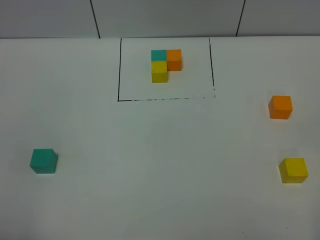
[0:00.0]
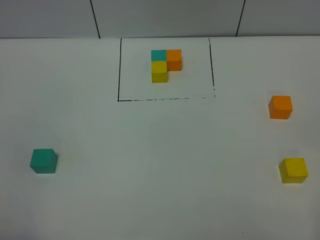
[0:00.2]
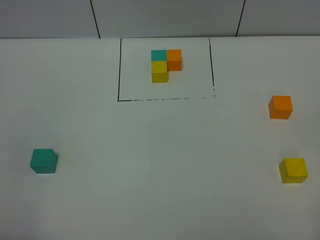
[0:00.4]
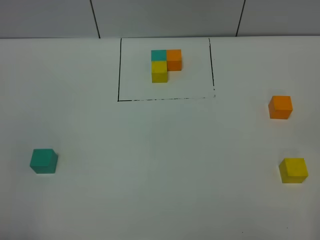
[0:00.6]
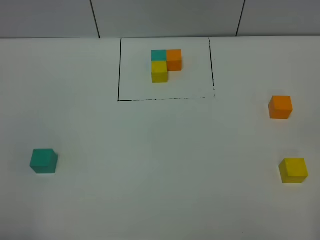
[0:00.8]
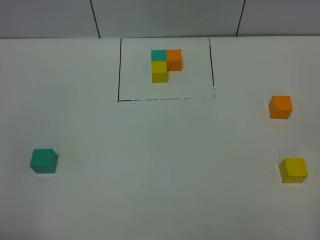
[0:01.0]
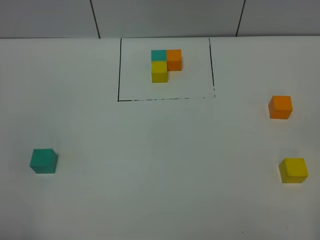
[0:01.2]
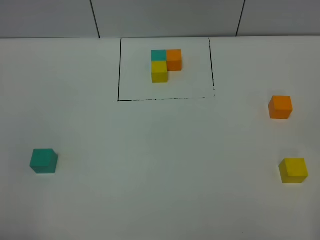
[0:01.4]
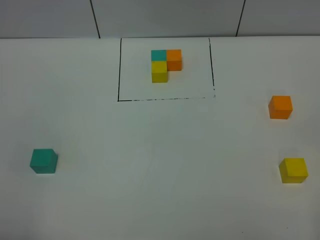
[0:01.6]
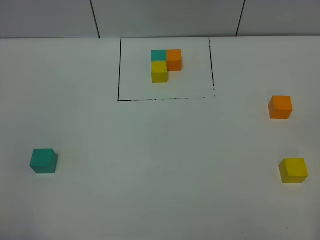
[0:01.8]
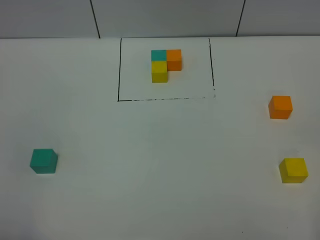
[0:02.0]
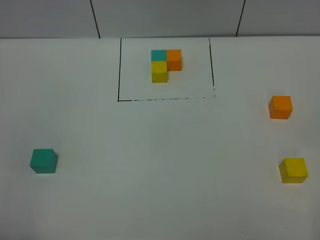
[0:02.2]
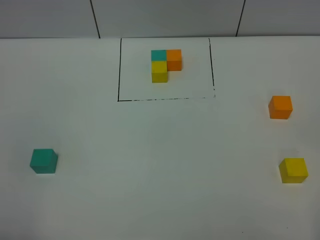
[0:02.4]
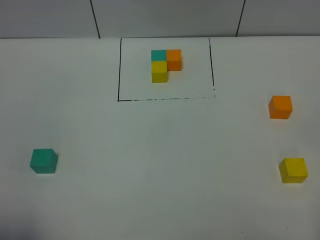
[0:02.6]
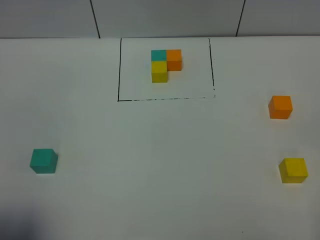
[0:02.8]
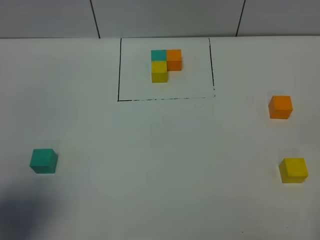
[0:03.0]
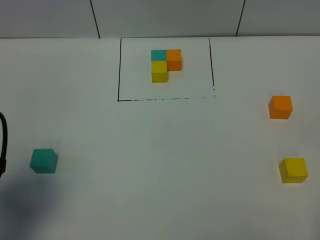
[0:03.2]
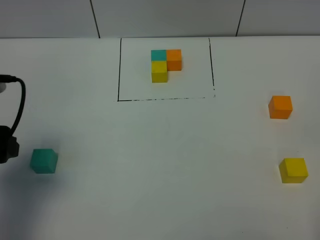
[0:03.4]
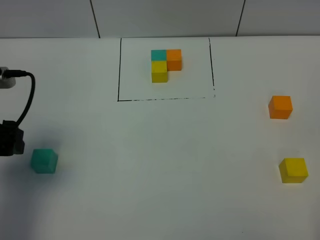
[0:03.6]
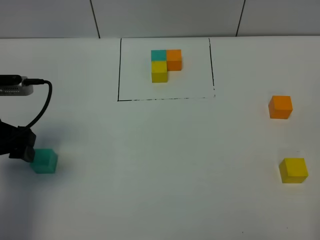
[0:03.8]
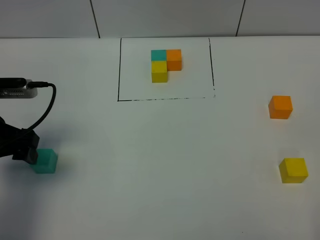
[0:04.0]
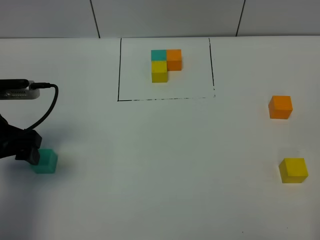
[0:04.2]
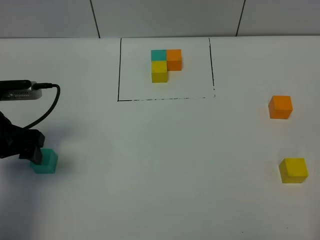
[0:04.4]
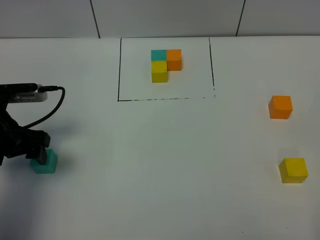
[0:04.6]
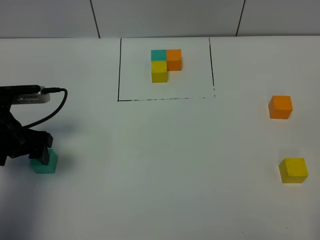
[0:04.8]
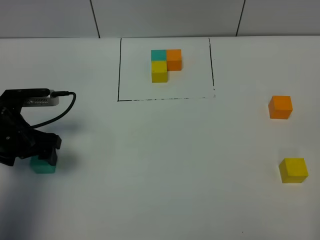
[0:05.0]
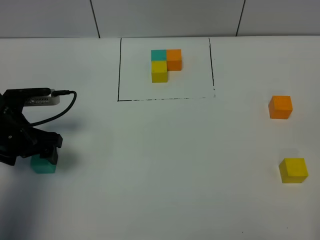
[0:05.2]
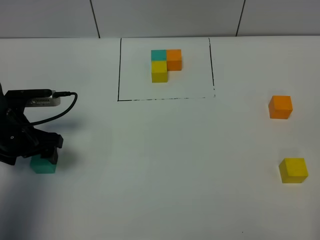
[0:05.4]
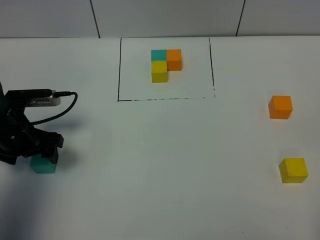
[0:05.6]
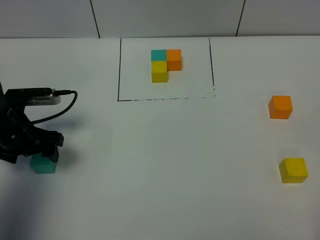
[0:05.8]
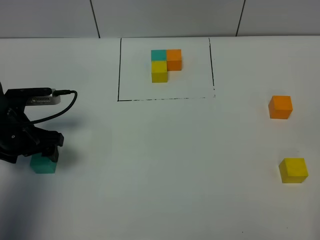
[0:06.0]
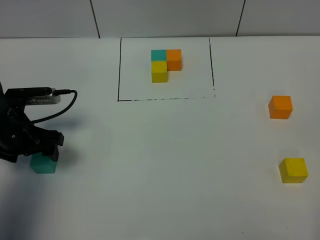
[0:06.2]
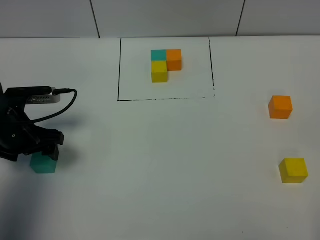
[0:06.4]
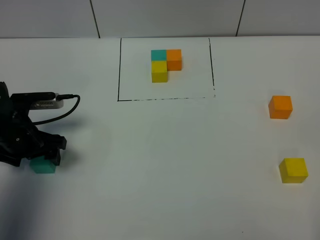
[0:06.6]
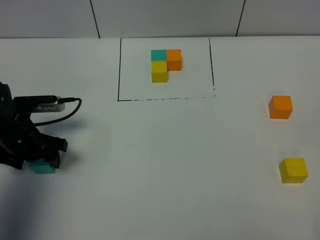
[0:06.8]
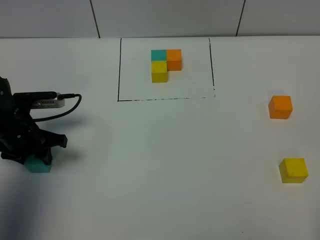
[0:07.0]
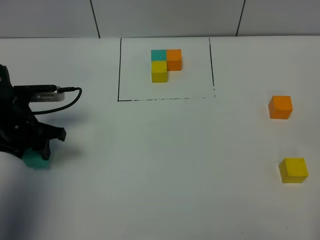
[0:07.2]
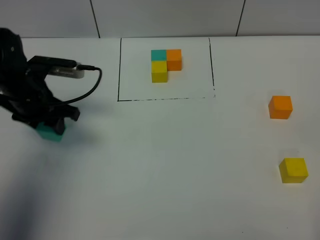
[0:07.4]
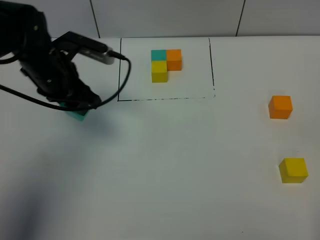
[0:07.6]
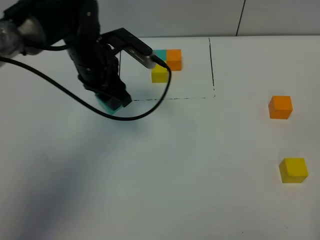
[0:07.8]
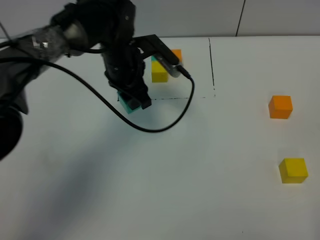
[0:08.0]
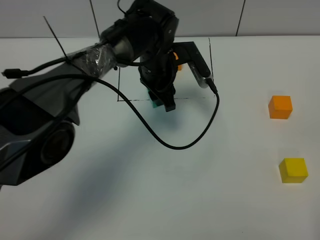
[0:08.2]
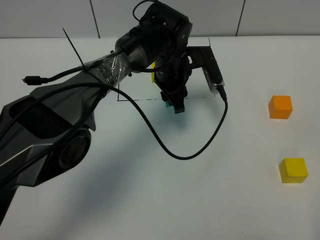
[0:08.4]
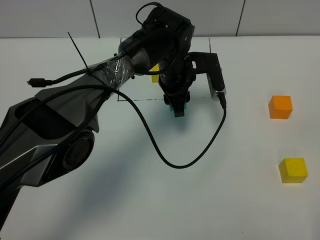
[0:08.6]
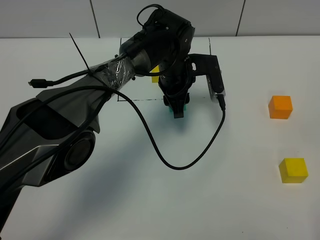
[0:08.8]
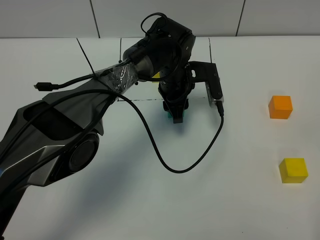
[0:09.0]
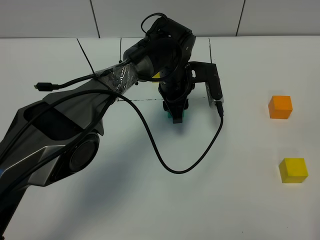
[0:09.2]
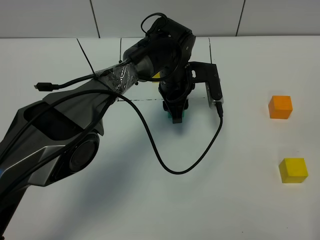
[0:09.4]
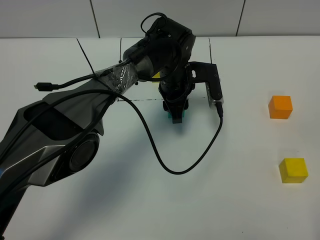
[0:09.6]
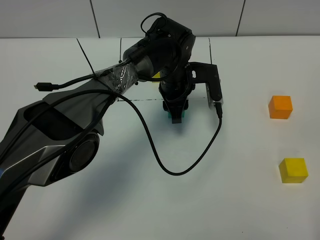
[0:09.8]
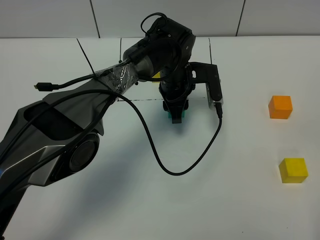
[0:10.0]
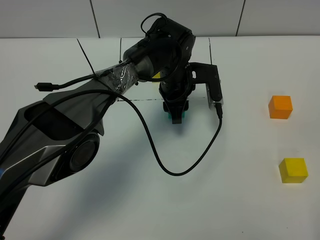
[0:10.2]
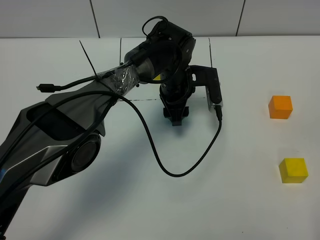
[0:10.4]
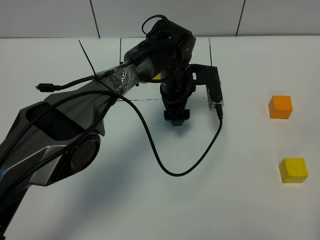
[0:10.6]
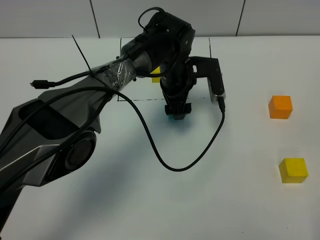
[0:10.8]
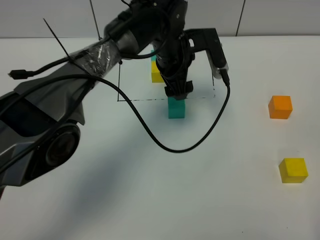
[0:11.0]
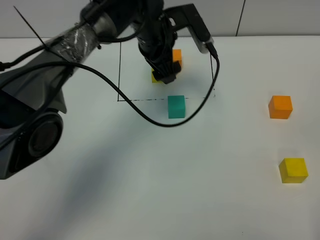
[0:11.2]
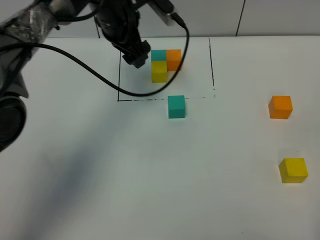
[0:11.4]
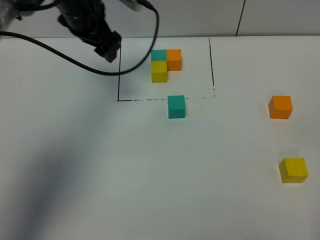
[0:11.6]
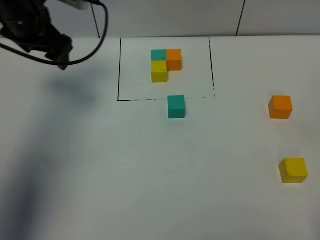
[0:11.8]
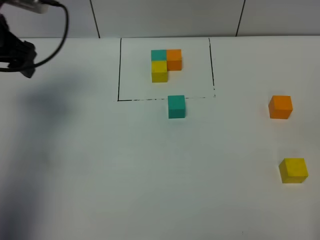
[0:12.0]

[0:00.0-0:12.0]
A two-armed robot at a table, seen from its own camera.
Task of the whole recording: According to the building block template in front, assemble the scattered blocks together.
Step, 0:00.0 to 0:10.0: Put the blue build block in the center of the table.
0:00.0 to 0:01.6: The two grippers keep their place.
0:01.6 to 0:03.0: The left gripper moves forward, roughly 10 cm.
0:03.0 to 0:04.4: The left gripper moves forward and downward, roughly 15 cm.
0:04.4 to 0:06.0: The left gripper goes roughly 5 cm downward.
0:06.0 to 0:07.6: The left gripper shifts roughly 15 cm to the right, upward and forward, and closes.
0:07.6 to 0:09.0: The left gripper travels to the right and downward by roughly 25 cm.
0:09.0 to 0:10.4: The left gripper opens its fingers.
0:10.4 to 0:12.0: The left gripper is displaced to the left and upward by roughly 35 cm, and opens.

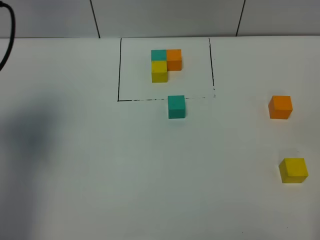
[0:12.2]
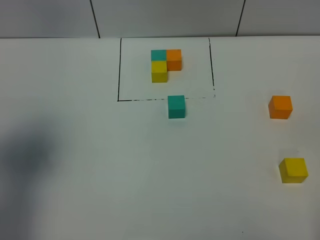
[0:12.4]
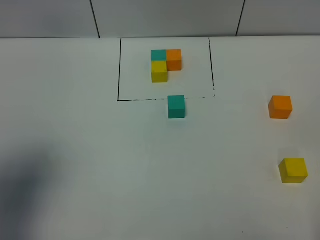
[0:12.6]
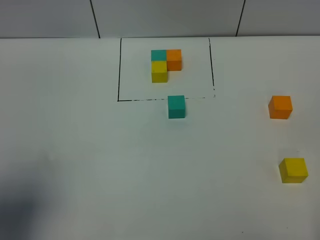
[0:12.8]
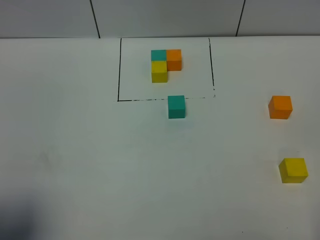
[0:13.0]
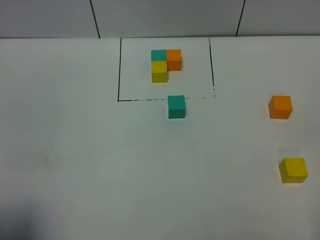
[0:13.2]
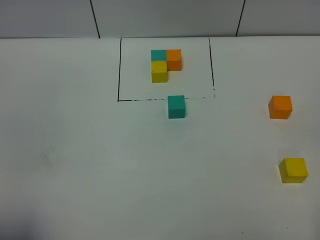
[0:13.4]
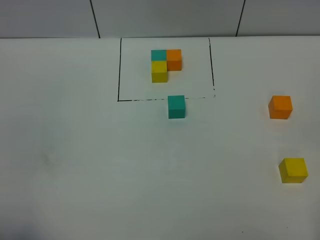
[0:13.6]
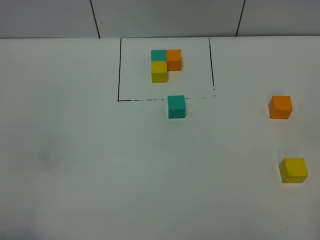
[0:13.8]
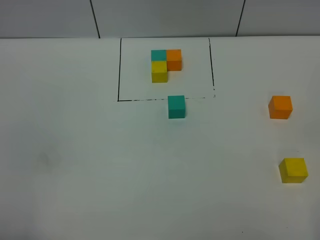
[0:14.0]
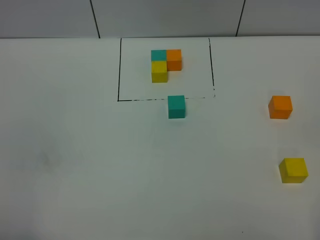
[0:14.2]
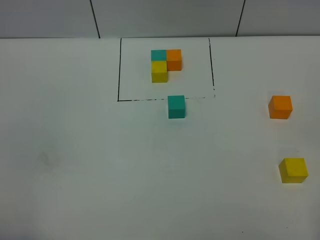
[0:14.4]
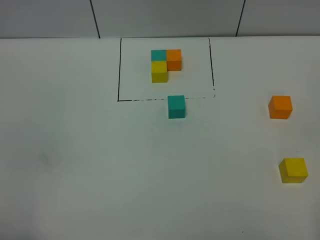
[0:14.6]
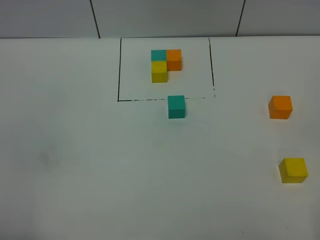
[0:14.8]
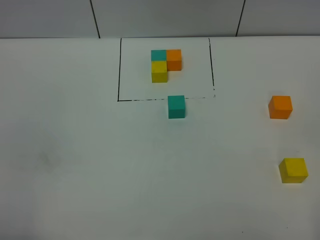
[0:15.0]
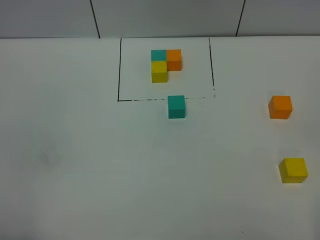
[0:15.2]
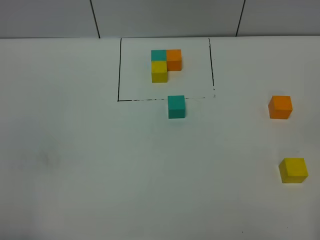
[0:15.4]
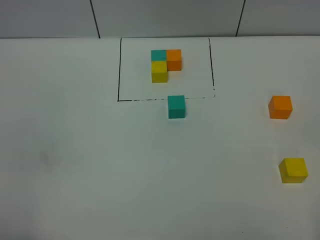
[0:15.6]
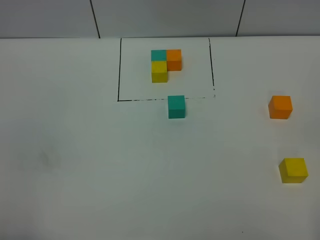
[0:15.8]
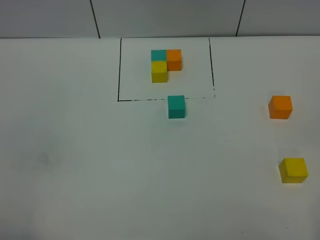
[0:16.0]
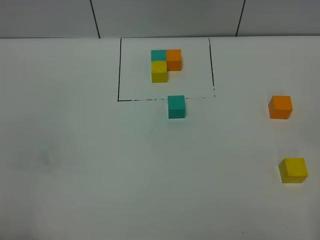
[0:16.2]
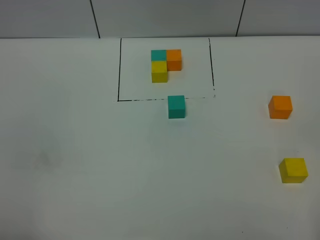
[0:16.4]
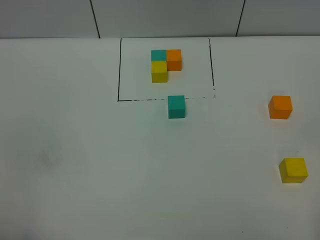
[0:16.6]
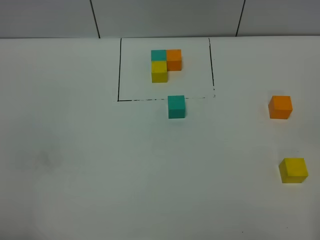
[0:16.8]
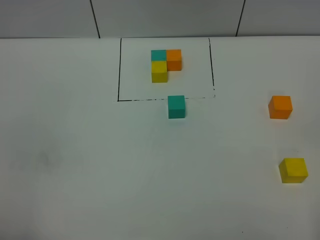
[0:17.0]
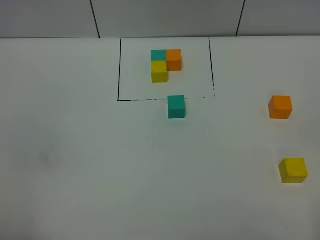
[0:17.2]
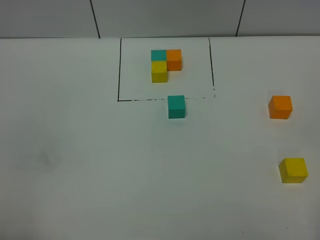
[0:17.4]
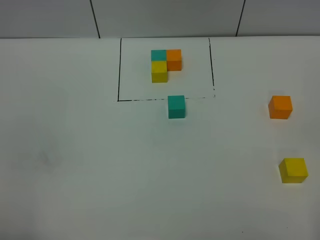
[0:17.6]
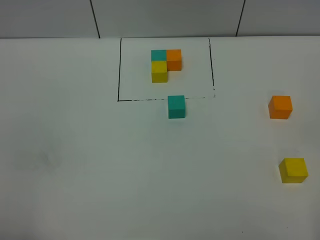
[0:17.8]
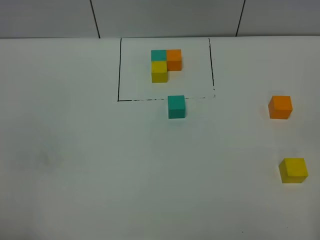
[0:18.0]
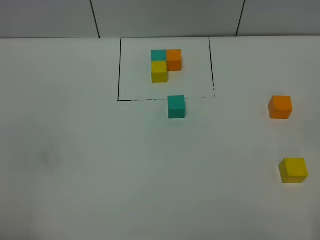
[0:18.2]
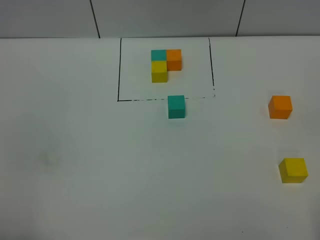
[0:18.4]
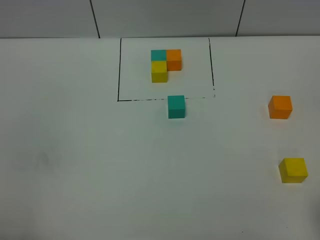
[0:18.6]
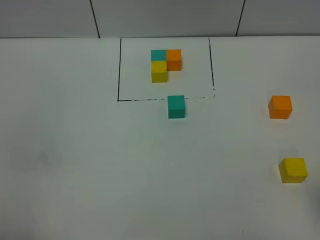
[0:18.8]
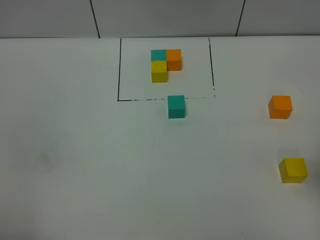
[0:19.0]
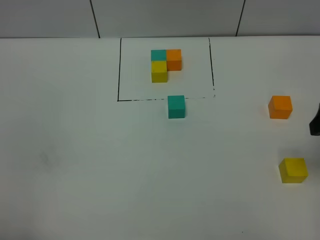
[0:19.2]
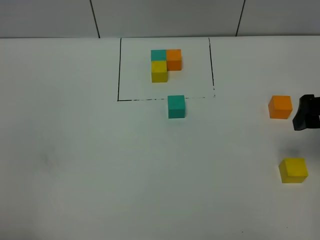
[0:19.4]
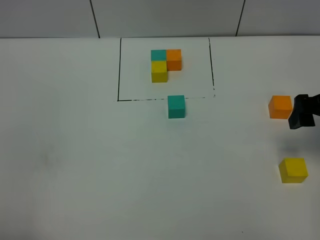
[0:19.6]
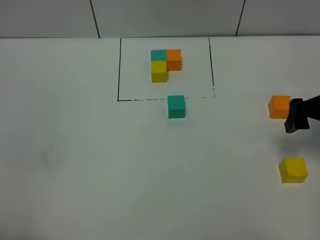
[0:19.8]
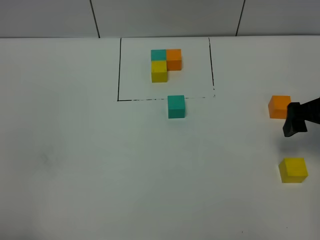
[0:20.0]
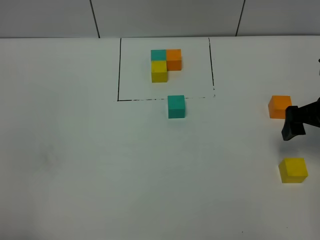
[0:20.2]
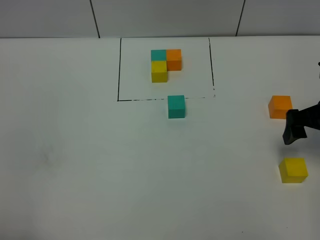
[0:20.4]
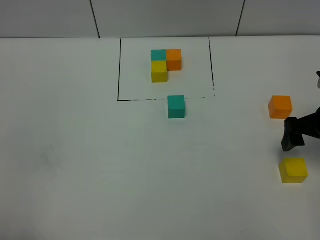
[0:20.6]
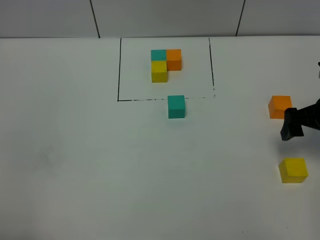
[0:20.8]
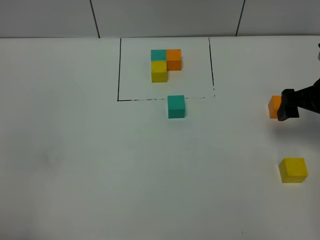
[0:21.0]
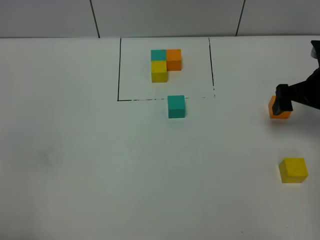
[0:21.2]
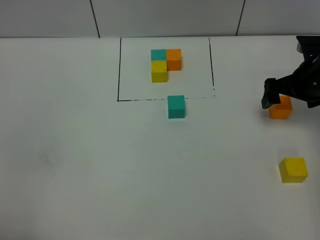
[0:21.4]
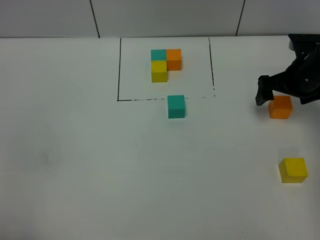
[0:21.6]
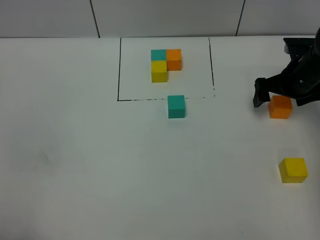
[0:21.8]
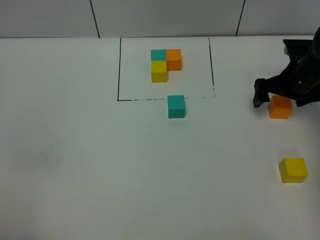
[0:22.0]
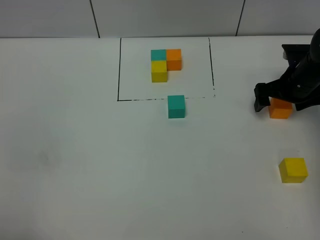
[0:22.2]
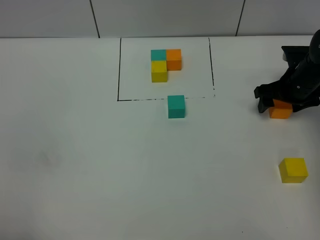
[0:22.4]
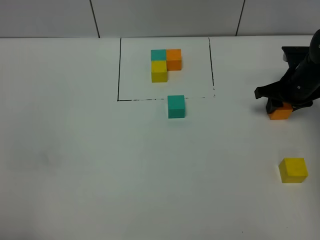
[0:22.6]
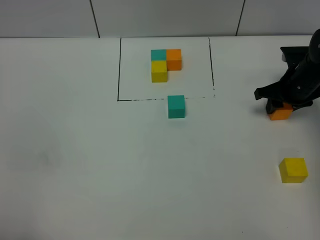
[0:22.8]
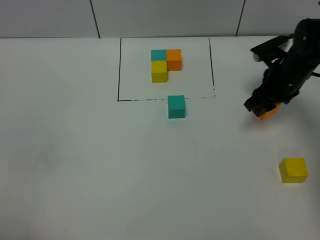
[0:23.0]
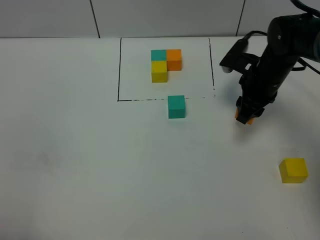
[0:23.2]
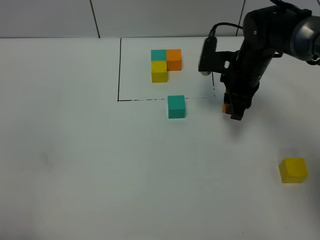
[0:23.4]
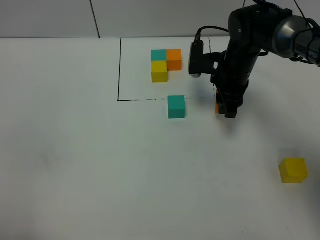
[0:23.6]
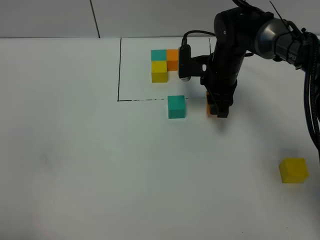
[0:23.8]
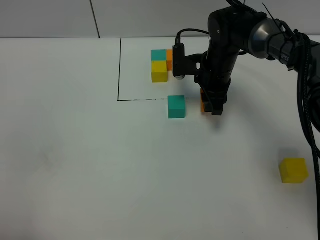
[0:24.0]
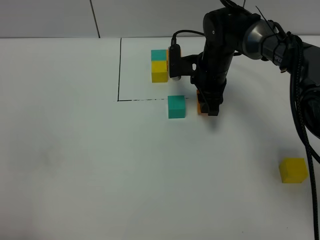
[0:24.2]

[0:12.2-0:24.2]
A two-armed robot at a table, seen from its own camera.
Task of the whole recording: According to the building block template in front, assemble the scattered blocks together.
0:12.2 to 0:13.8: The left gripper is displaced backward by roughly 25 cm.
0:13.8 to 0:16.6: The two grippers keep their place.
0:18.2 to 0:19.8: The right gripper heads forward, covering some 30 cm.
0:19.8 to 0:21.2: The right gripper shifts approximately 5 cm forward.
0:21.2 to 0:22.6: The right gripper travels downward and forward by some 10 cm, and closes up.
0:22.6 to 0:24.2: The right gripper goes approximately 20 cm to the left.
